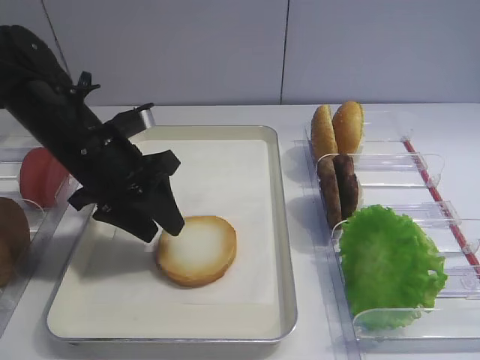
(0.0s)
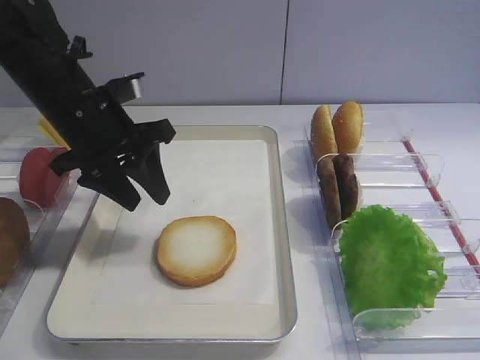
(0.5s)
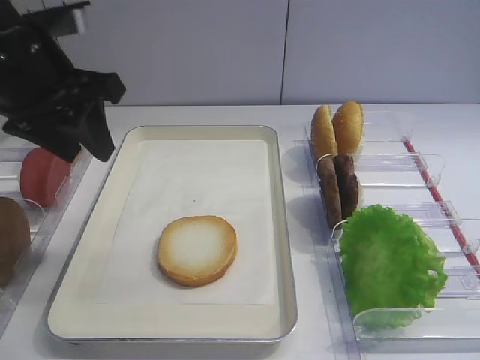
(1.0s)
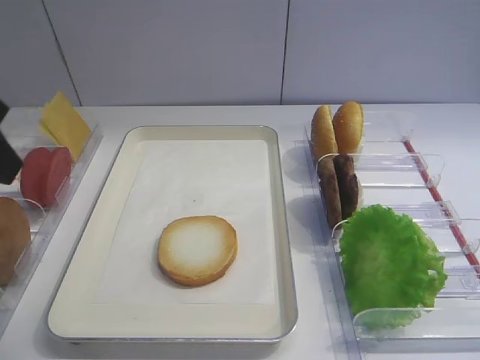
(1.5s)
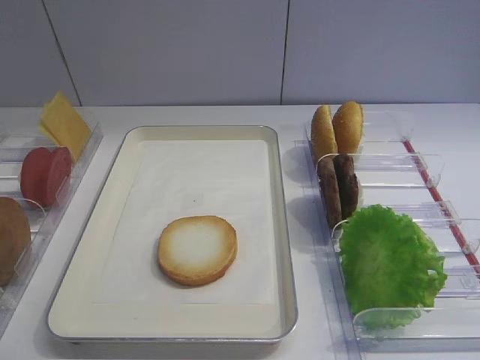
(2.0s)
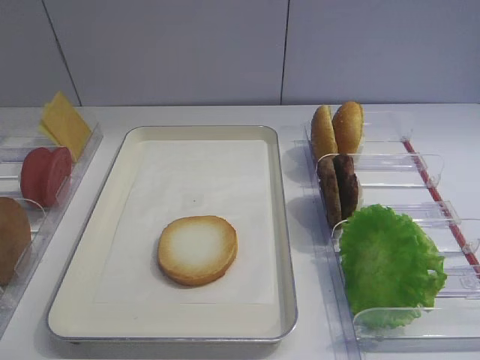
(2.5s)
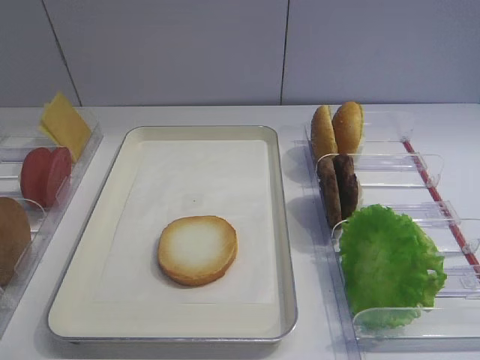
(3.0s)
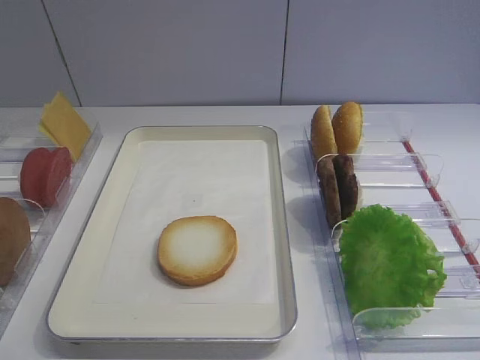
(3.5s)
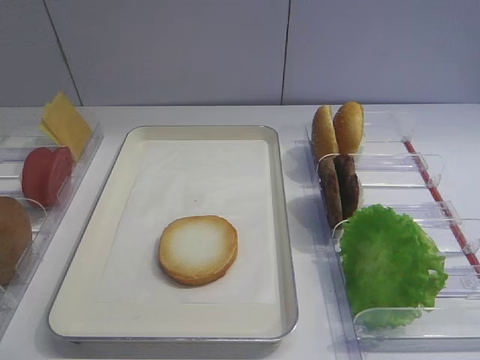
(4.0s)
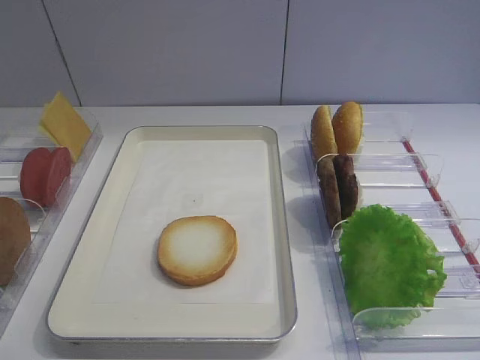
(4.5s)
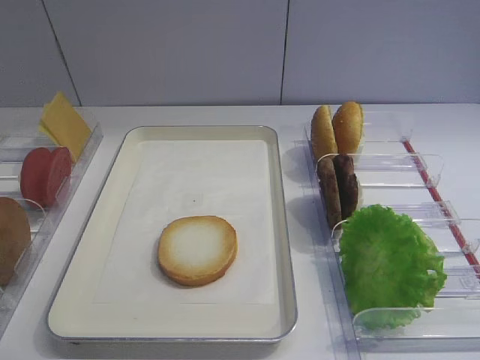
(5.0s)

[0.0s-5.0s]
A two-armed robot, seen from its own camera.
0.0s to 2.5s: The left gripper goes some 30 cm backward and upward, and closes its fingers.

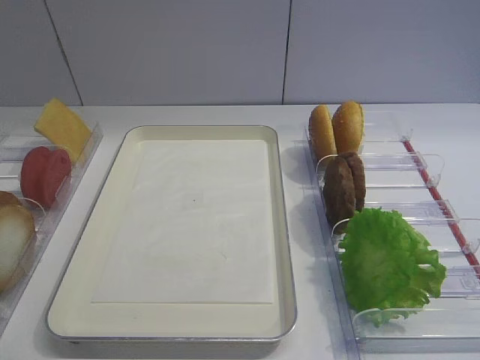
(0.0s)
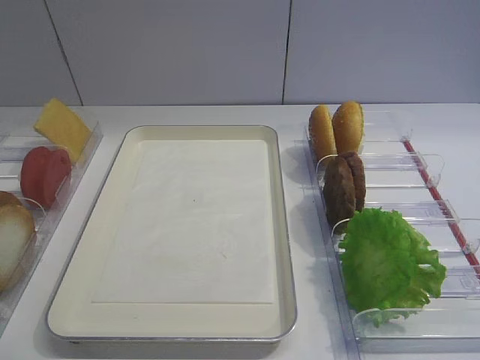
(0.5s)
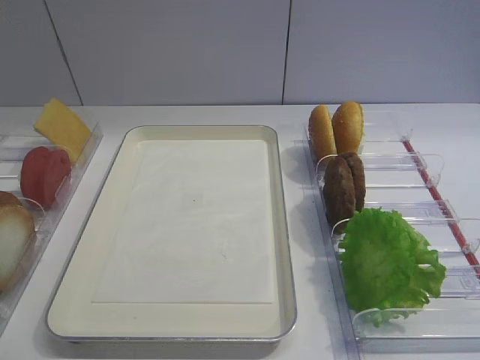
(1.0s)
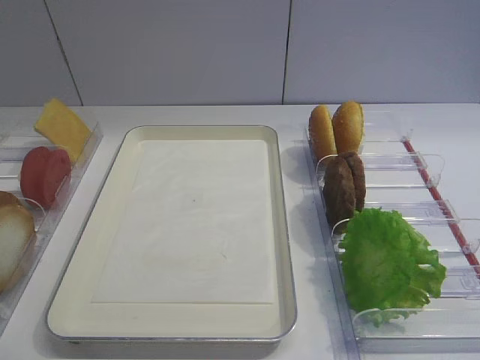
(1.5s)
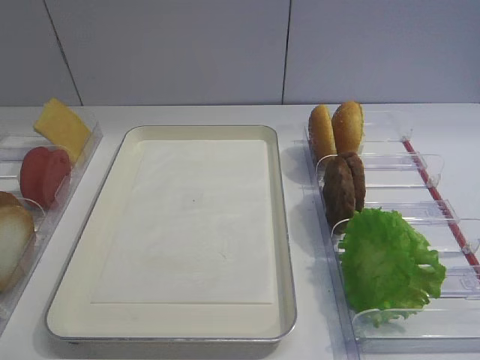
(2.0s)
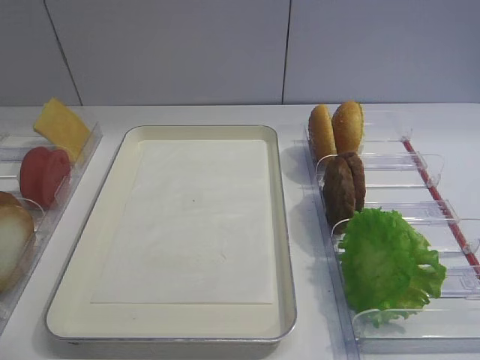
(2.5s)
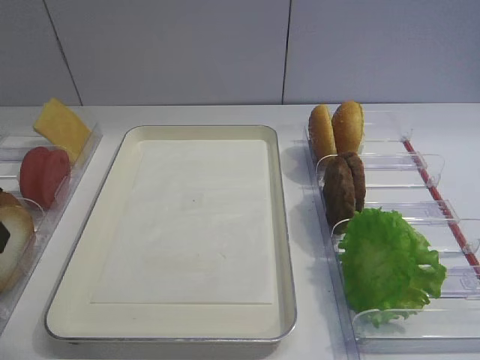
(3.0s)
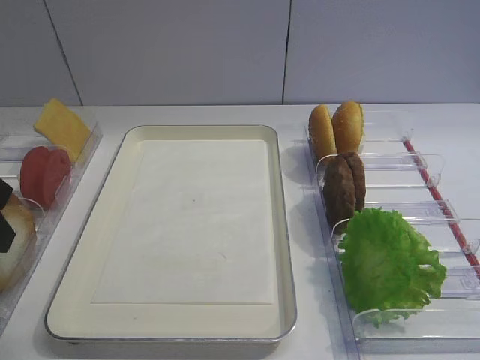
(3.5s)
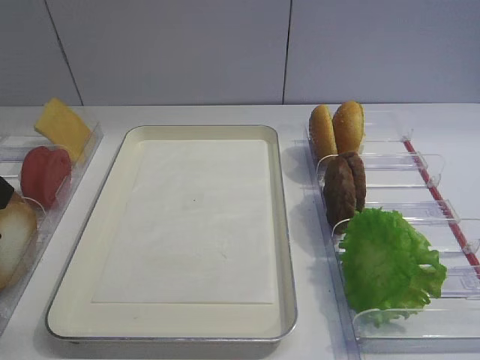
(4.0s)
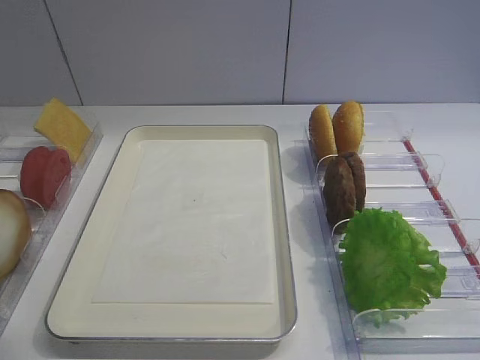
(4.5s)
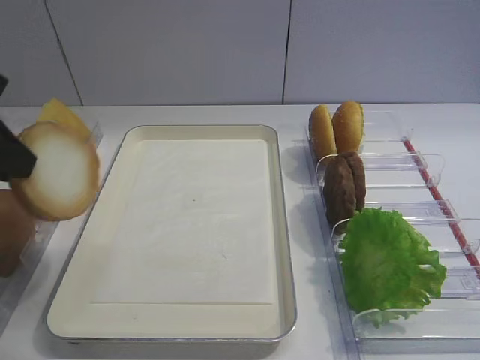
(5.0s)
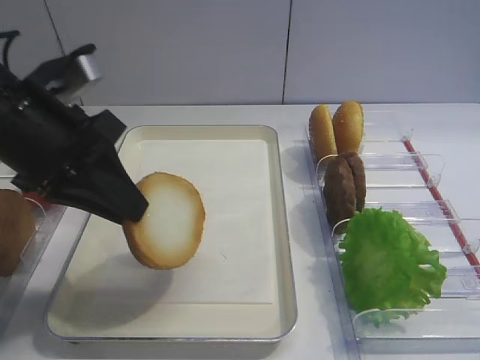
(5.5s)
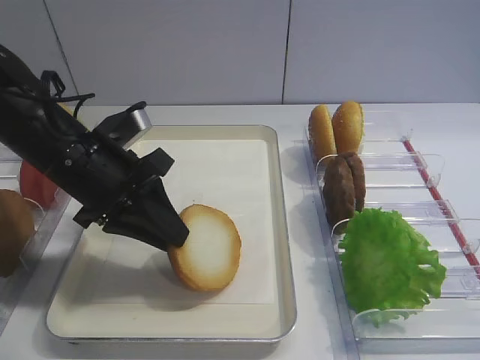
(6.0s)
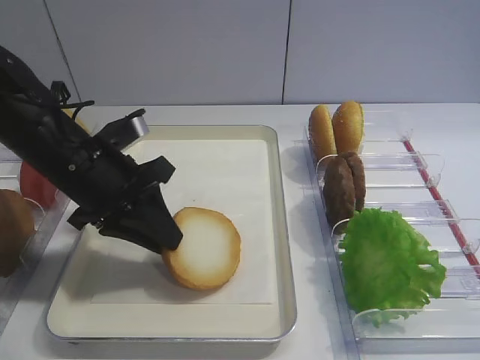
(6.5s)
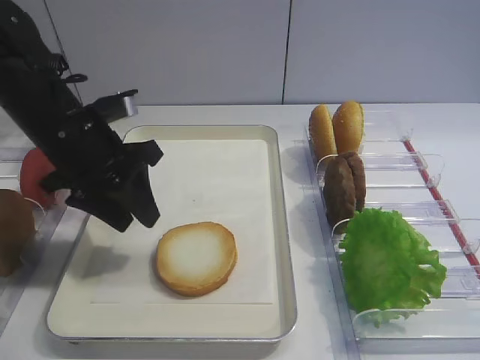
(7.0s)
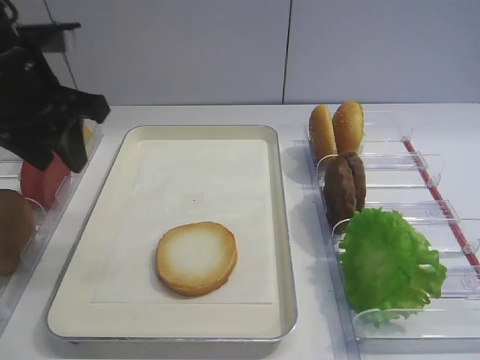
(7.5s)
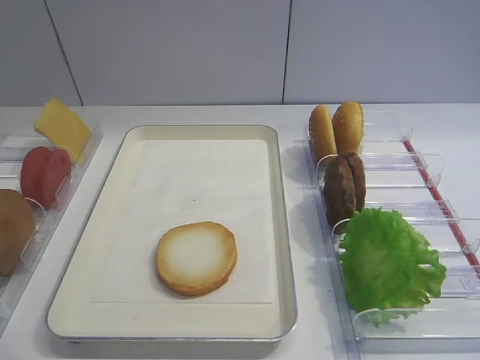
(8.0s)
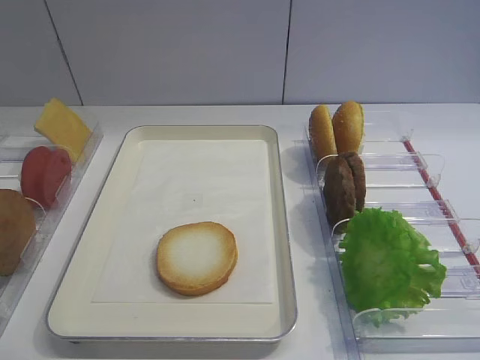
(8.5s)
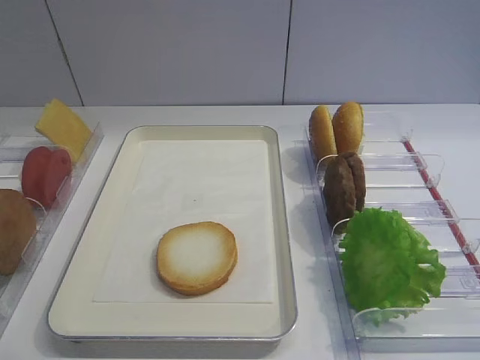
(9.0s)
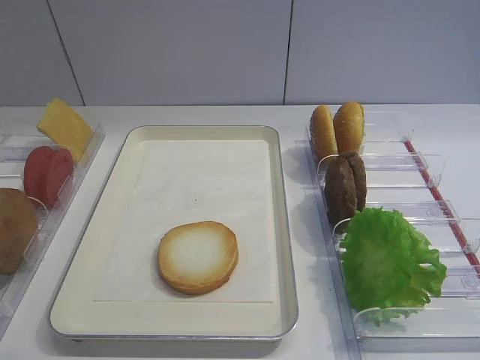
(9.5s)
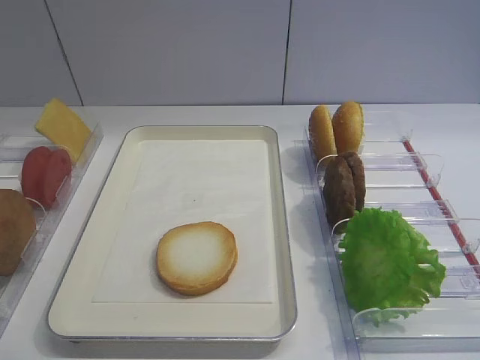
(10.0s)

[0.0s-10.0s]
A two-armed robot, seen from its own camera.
Step, 5.0s to 6.5s: Place the bread slice on the tray with the left gripper.
4.0s to 6.0s: The left gripper goes some 15 cm to the right, forward and downward.
6.0s to 8.0s: The left gripper travels backward, upward and to the left by roughly 25 cm, and opens up.

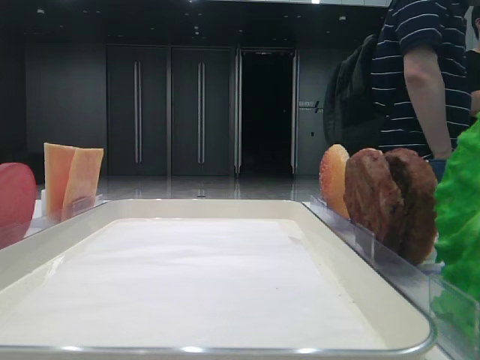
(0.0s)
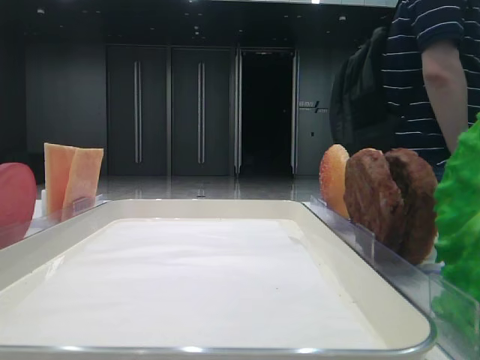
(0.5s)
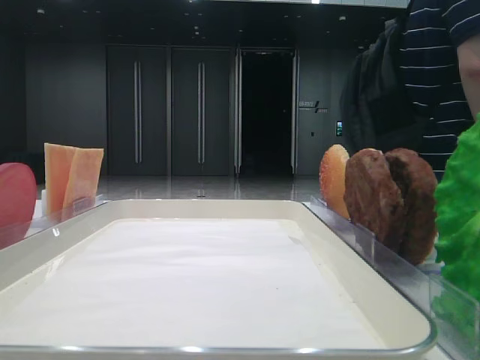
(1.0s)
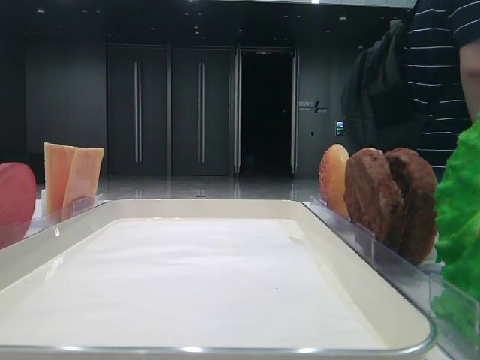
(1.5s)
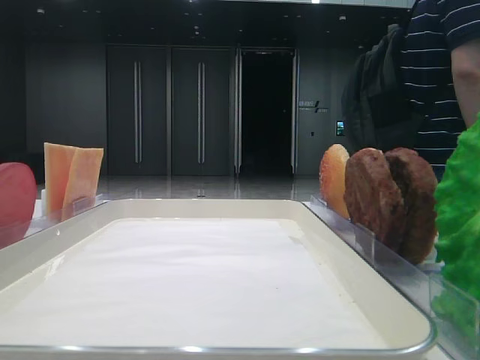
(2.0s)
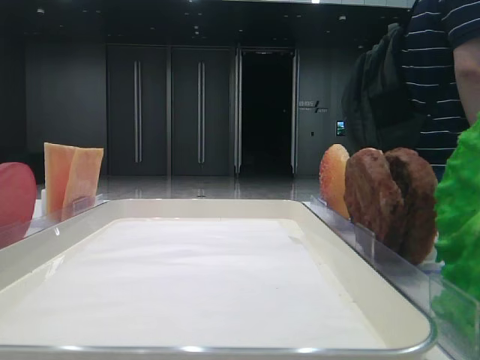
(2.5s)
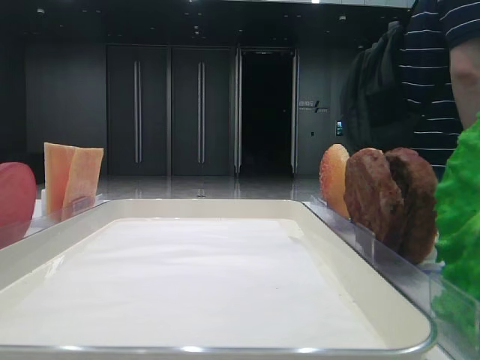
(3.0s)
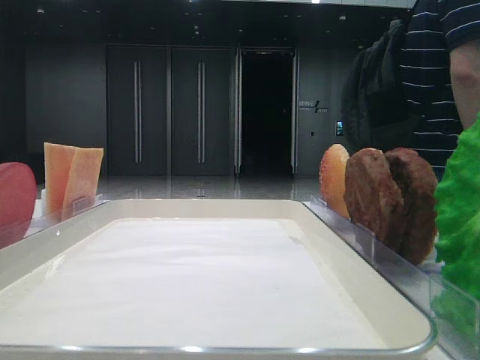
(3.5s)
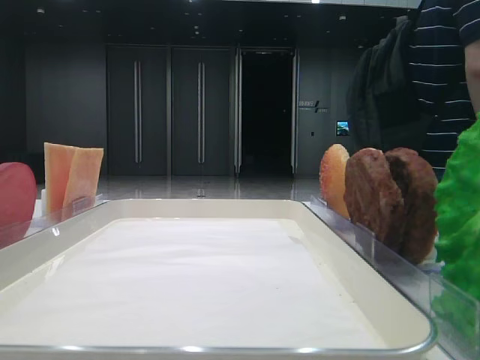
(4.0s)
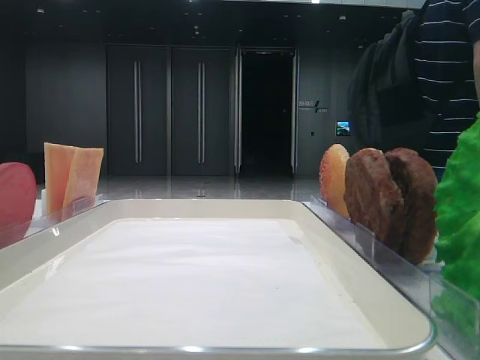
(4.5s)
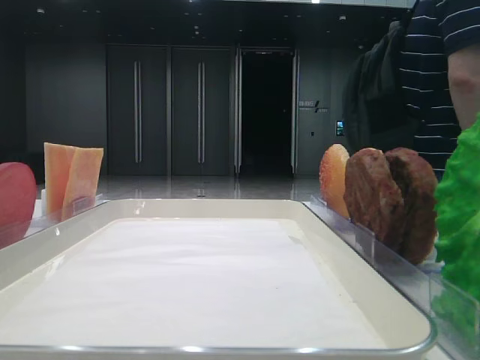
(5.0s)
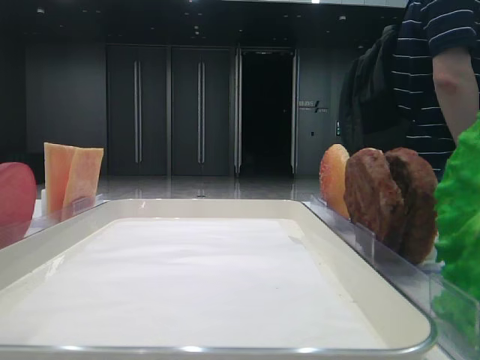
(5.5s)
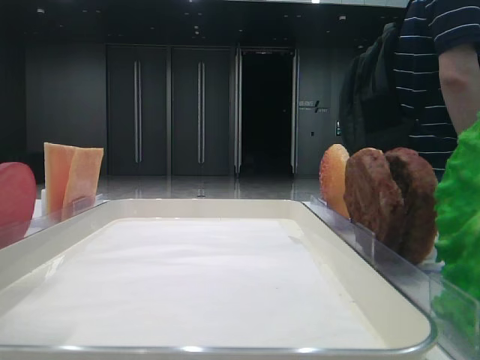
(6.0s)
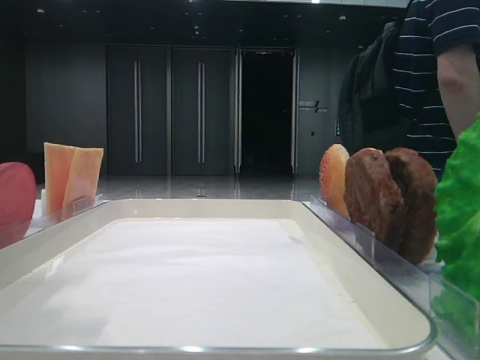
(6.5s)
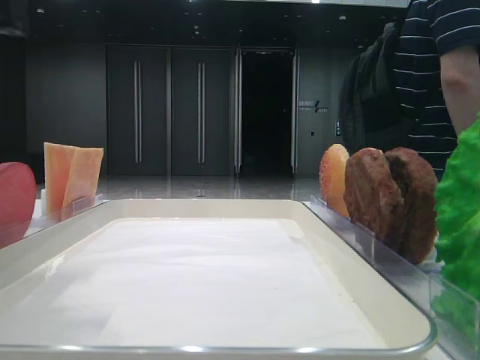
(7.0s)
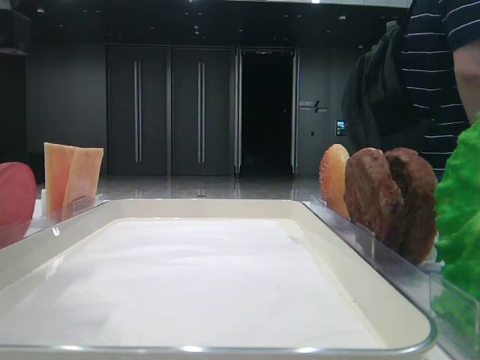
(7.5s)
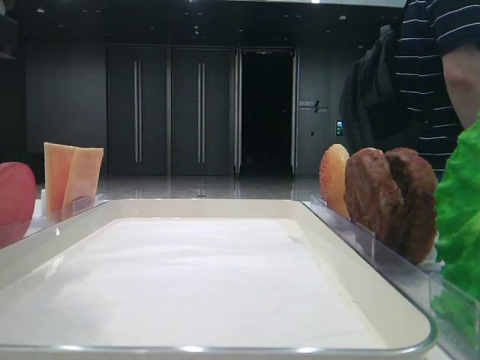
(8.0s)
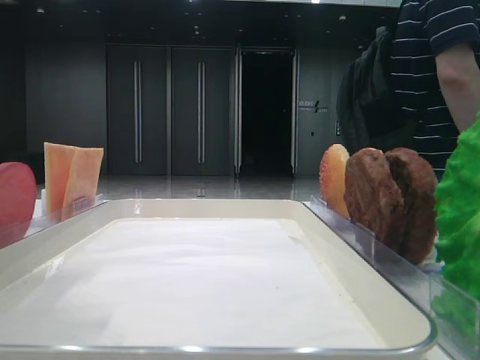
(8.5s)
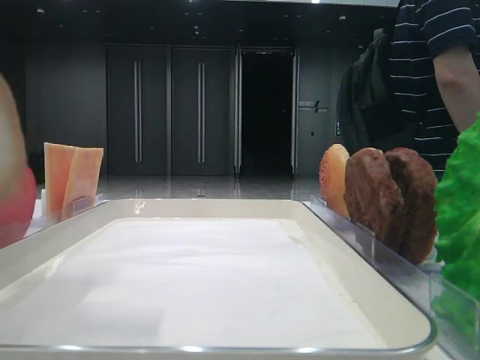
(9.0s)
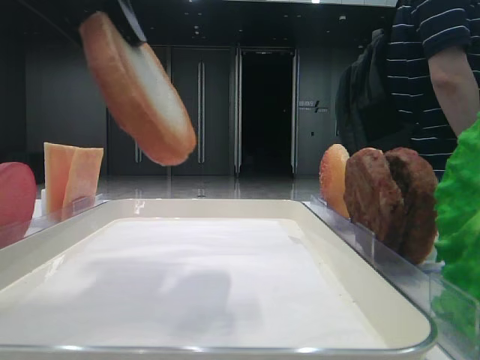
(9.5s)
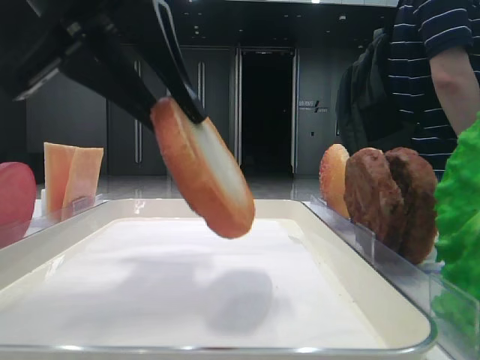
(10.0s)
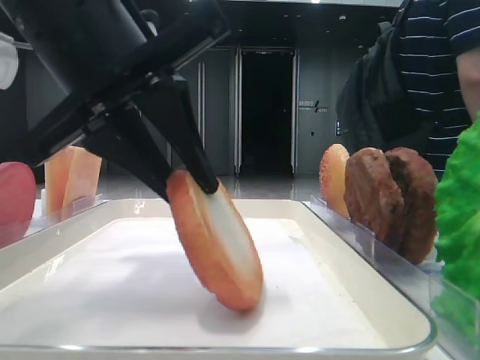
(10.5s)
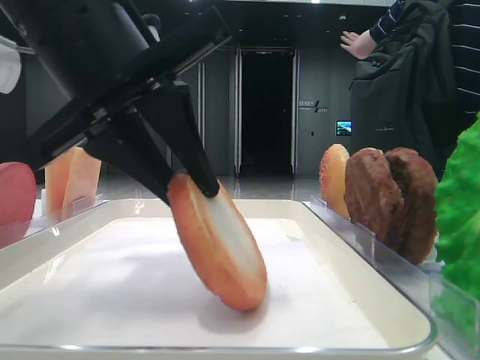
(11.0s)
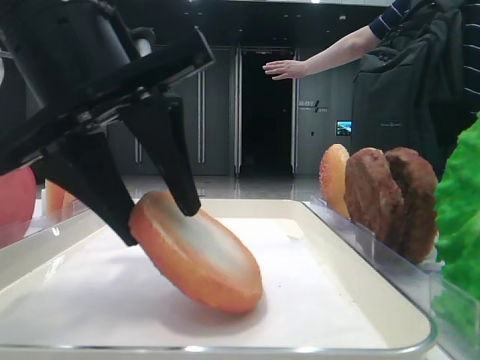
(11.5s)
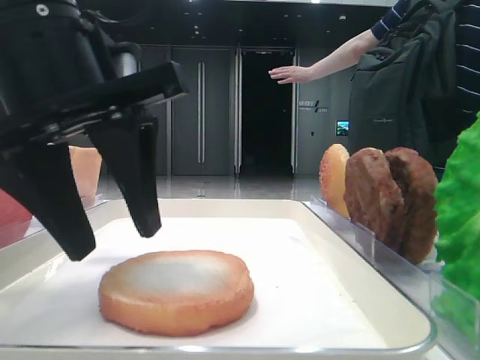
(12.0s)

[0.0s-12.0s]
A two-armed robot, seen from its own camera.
Step, 0.0s to 8.5s: Pick up the bottom bread with the left hand.
Step, 9.0s to 11.5s: Place the bread on the tray with the left hand.
2.0s to 4.0s: The grippers make only small movements.
4.0s to 6.0s: The left gripper travels to the right by some 10 cm.
6.0s to 8.0s: The left gripper changes place by approximately 5 cm, and closes its fingers.
8.0s to 10.0s: The left gripper shifts approximately 5 cm to the right.
10.0s to 12.0s: The left gripper heads downward, covering roughly 5 cm, and opens.
